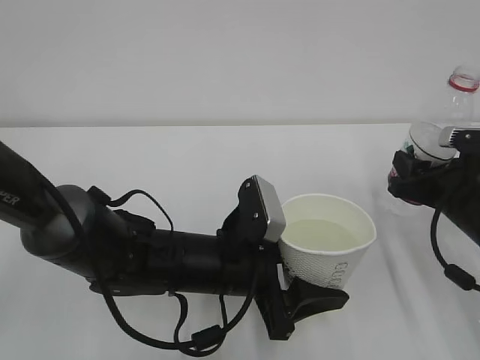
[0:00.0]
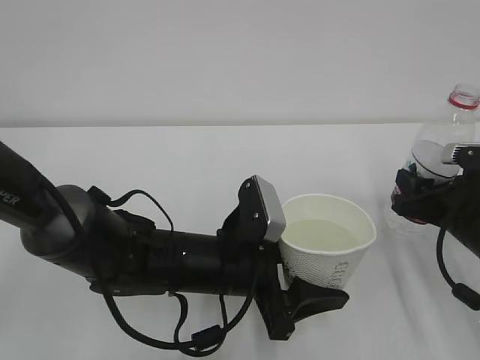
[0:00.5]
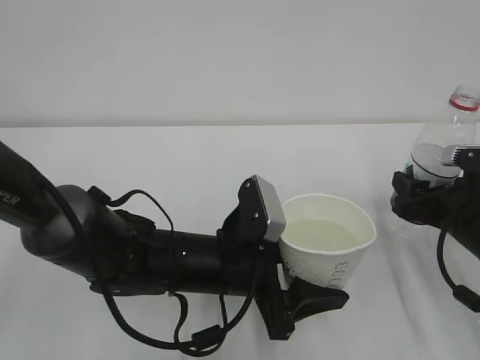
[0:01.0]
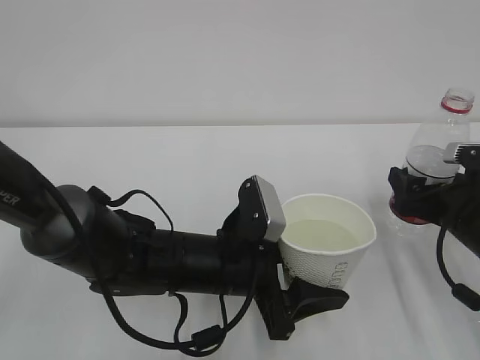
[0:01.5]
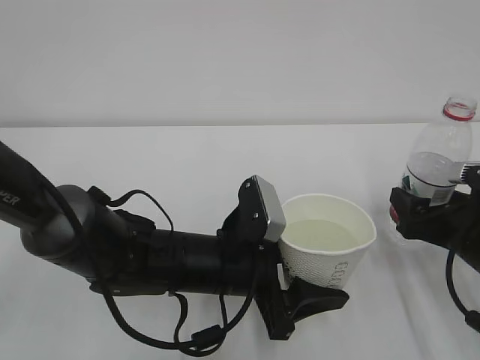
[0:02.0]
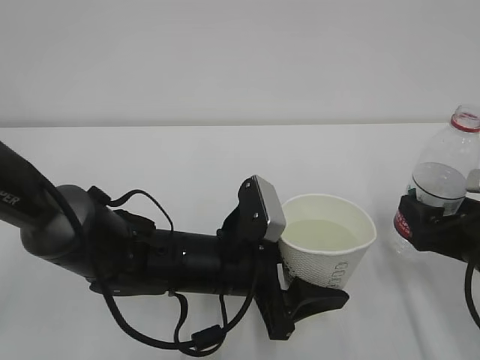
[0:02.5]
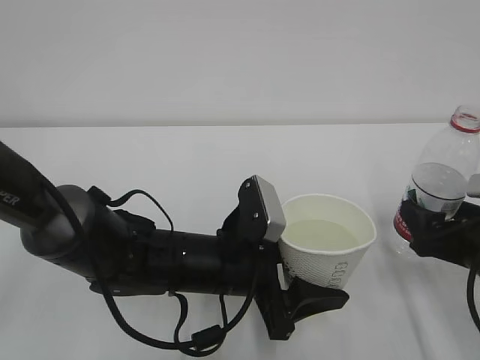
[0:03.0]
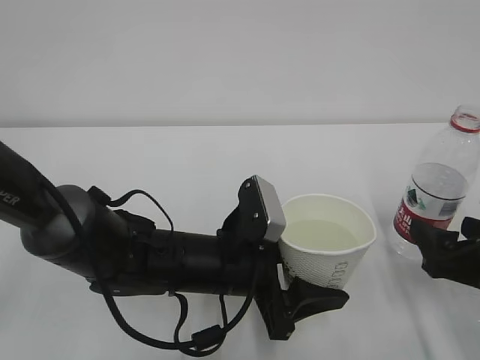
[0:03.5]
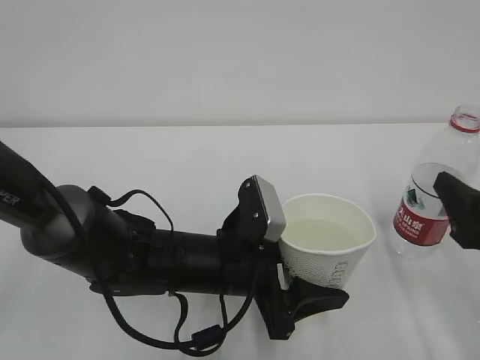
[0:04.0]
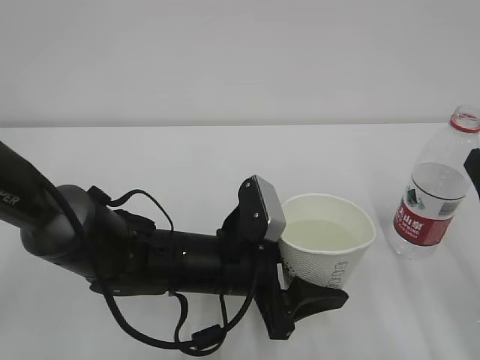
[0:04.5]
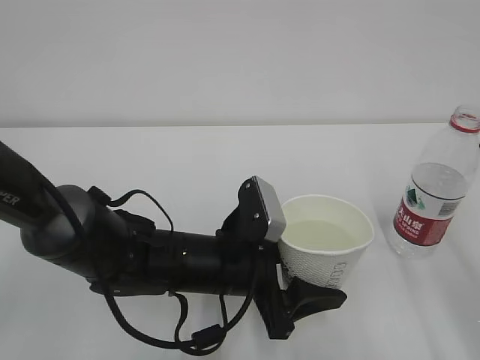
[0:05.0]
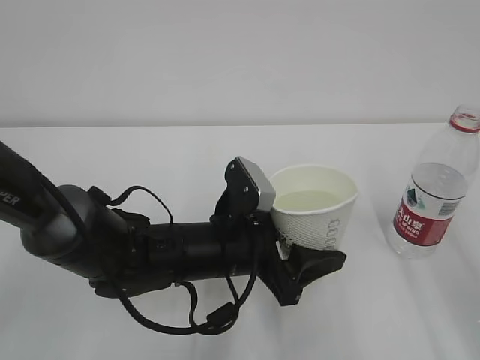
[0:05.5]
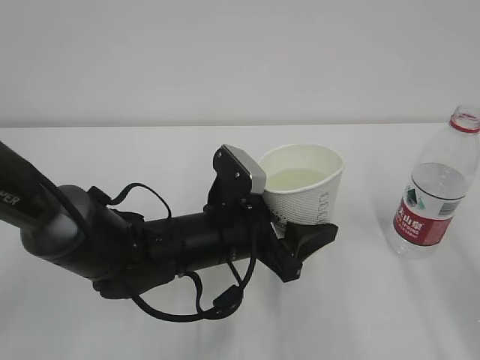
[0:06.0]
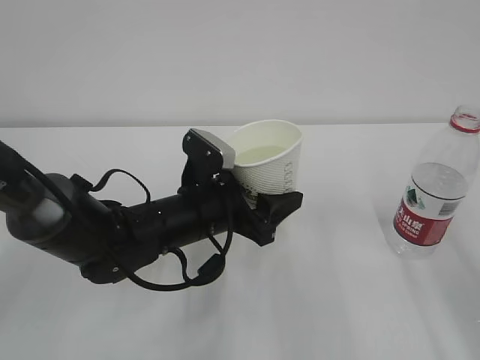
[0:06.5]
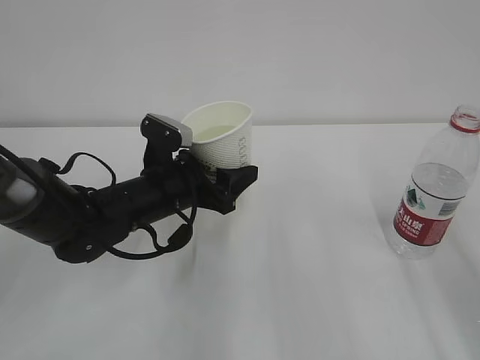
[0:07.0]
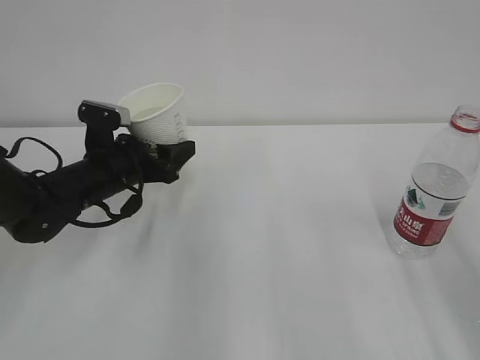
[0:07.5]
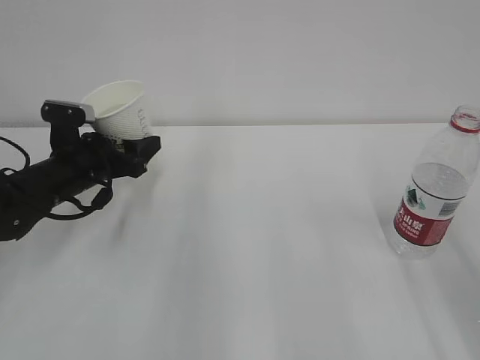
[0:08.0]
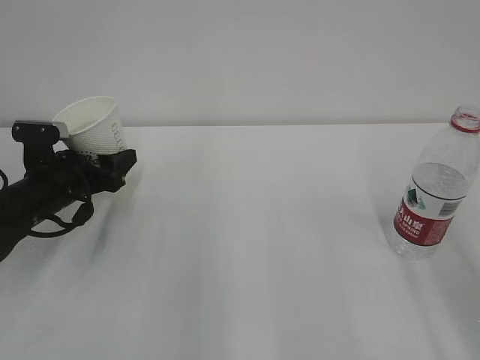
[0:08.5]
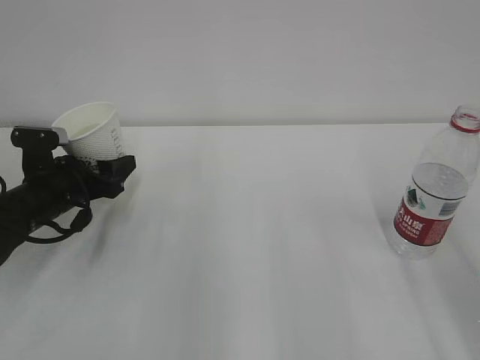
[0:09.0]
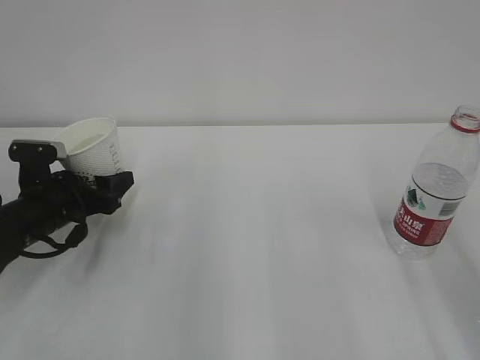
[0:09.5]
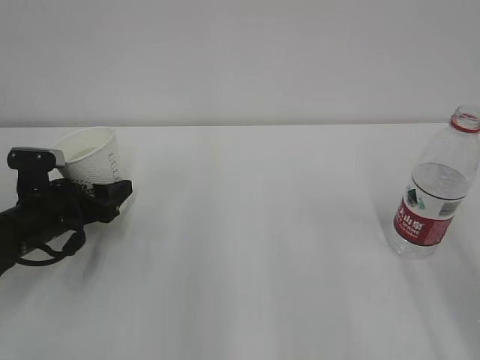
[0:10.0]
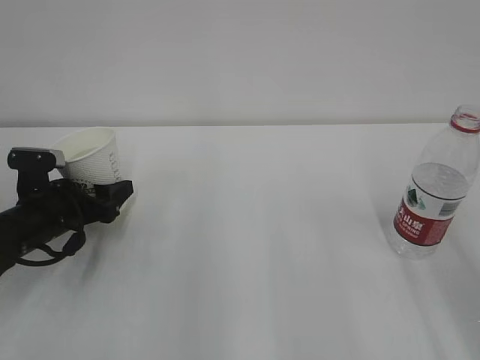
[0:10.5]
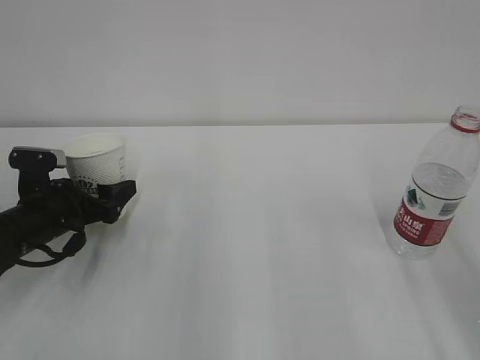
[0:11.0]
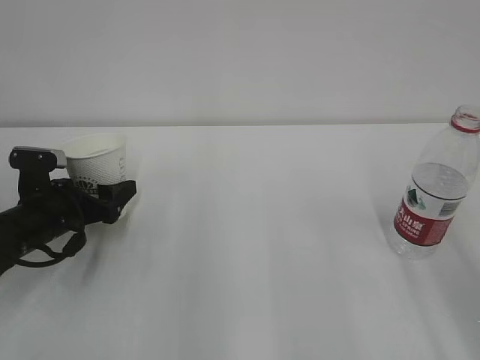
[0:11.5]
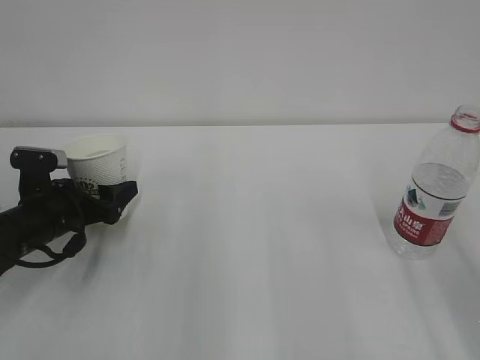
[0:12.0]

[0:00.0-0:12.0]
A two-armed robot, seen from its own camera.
0:00.0 to 0:02.0: The right gripper opens up.
0:02.0 to 0:04.0: The right gripper shifts roughly 10 cm backward and upward.
0:04.0 to 0:06.0: The right gripper is displaced upward by approximately 10 cm.
0:06.0 to 0:08.0: The left gripper goes some 25 cm to the left and forward.
0:08.0 to 0:10.0: The left gripper travels backward by approximately 5 cm.
0:10.0 to 0:12.0: Both grippers stay put.

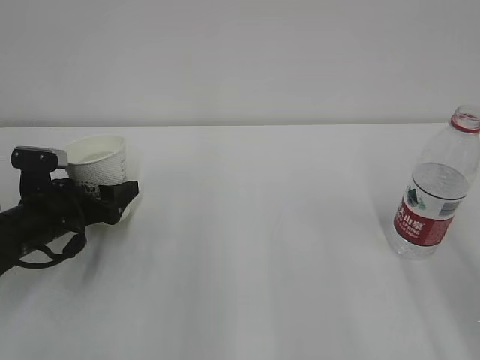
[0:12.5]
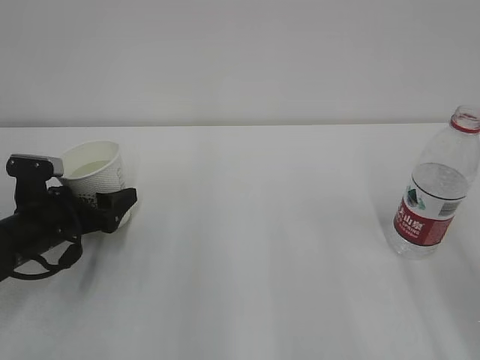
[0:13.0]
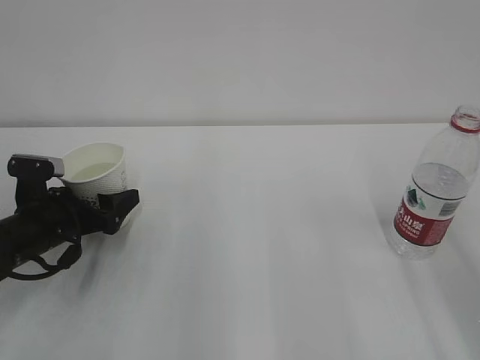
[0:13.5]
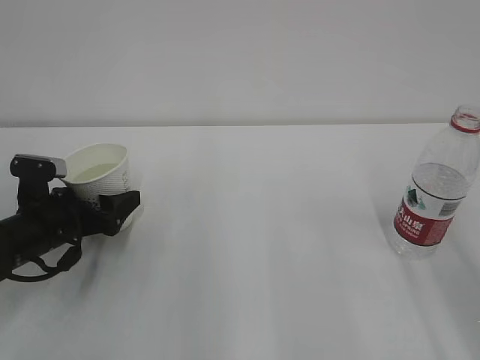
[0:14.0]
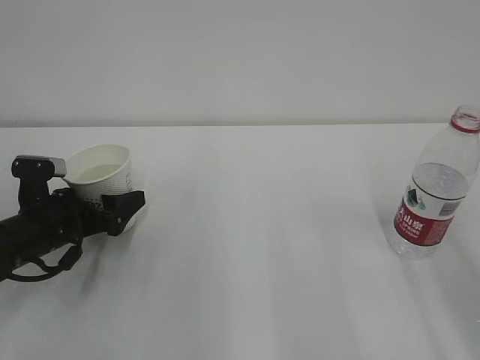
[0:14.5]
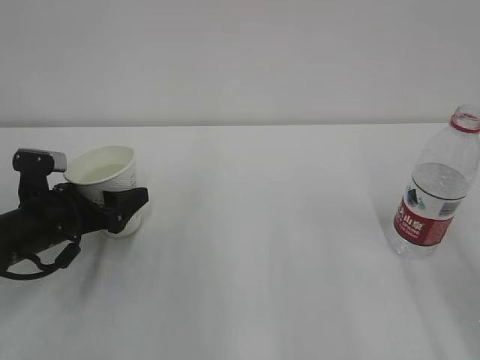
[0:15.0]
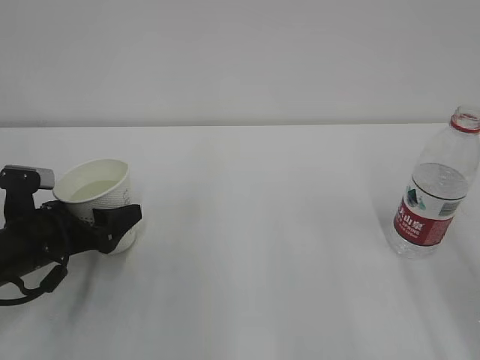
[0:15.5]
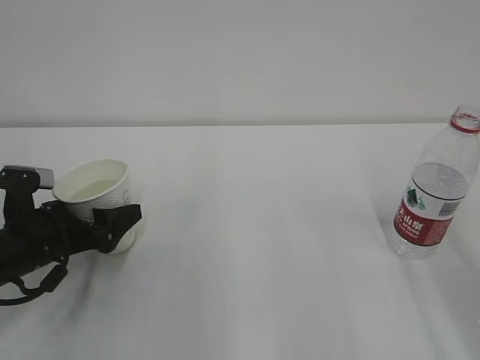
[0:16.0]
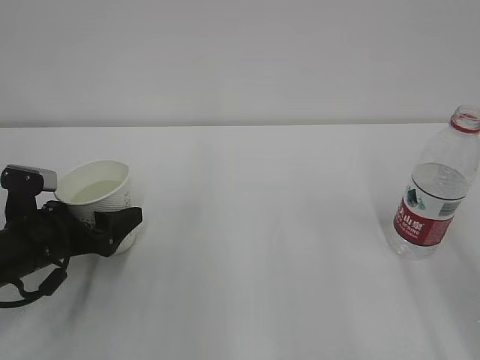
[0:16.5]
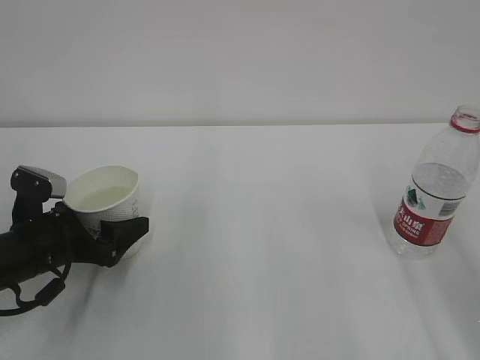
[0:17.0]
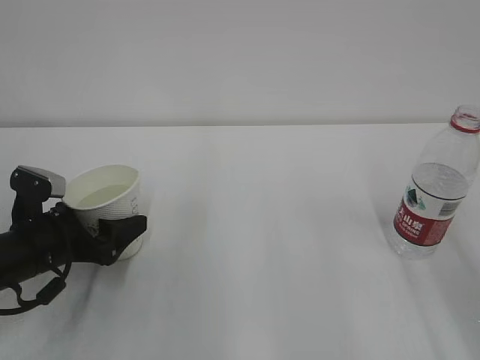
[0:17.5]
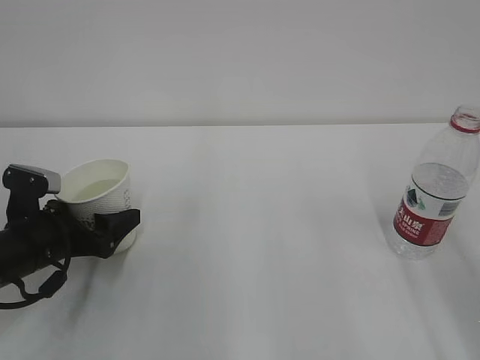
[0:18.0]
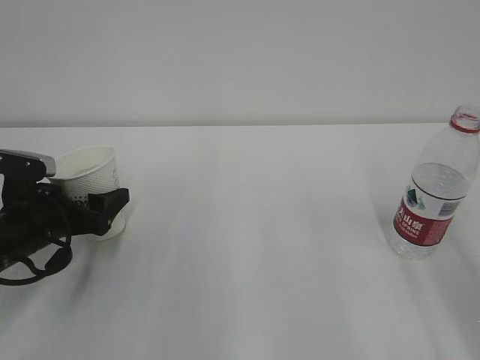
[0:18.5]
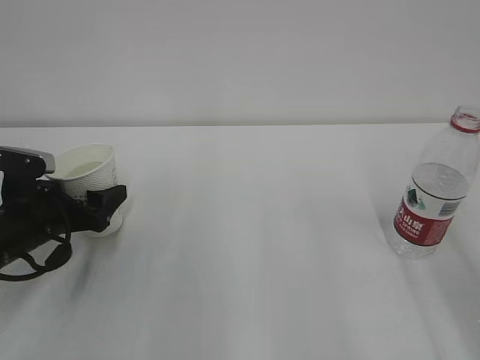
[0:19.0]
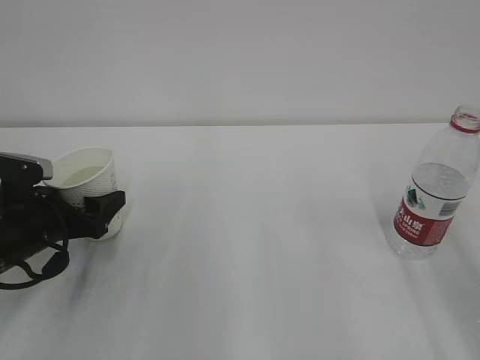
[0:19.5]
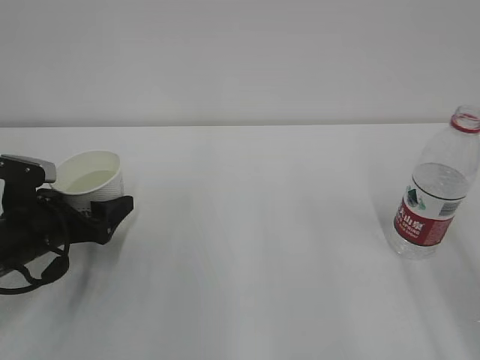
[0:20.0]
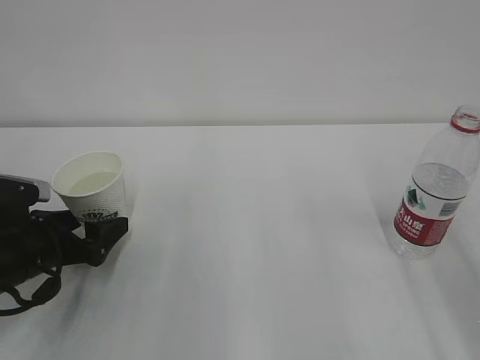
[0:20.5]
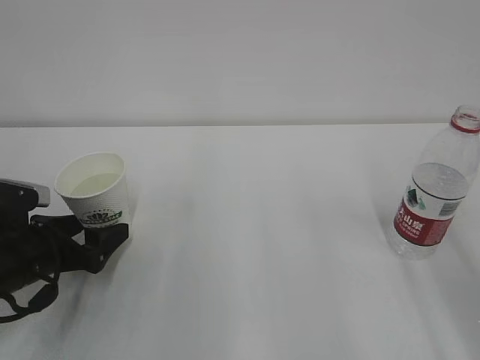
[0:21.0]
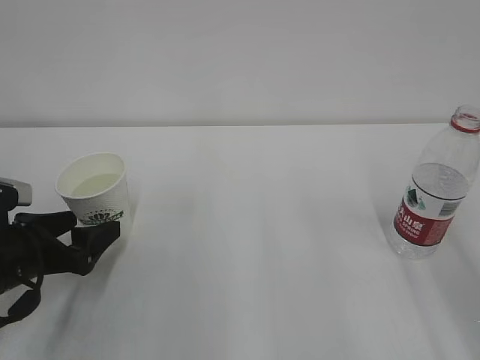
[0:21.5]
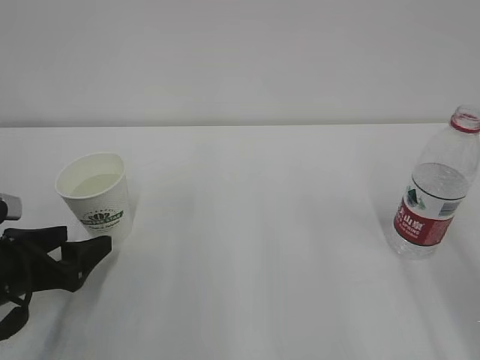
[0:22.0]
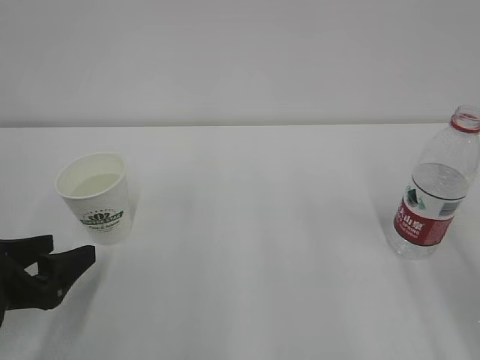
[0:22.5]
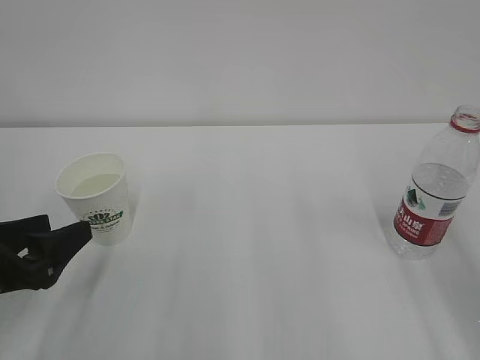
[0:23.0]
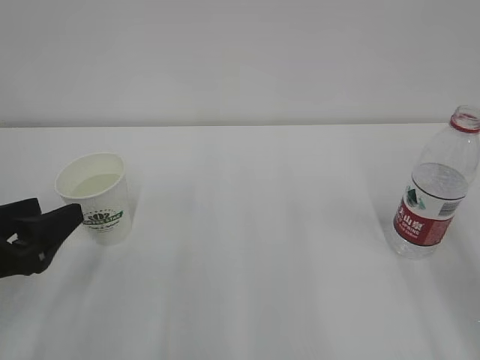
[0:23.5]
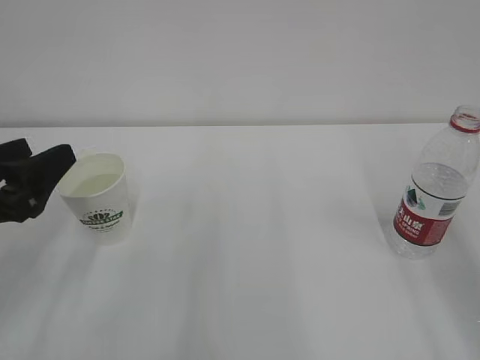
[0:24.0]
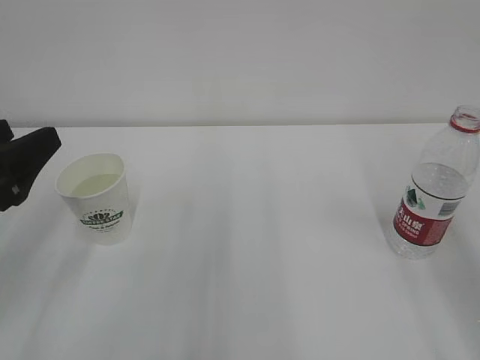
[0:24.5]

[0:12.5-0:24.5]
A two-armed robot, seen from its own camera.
0:12.5 to 0:20.5: The grippers stay close to where they were, moving slightly.
0:20.5 to 0:22.5: The left gripper is displaced backward by roughly 10 cm, and closes its fingers.
0:22.5 to 0:24.5: The left gripper travels upward by some 10 cm.
